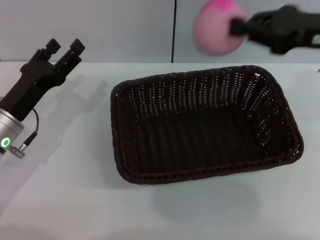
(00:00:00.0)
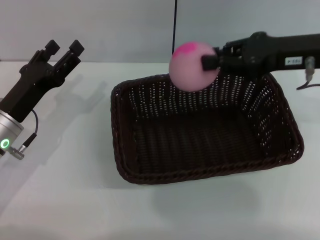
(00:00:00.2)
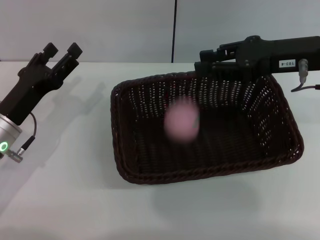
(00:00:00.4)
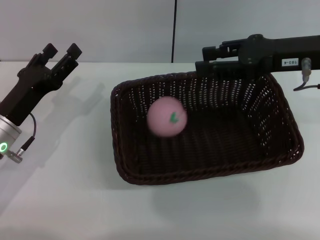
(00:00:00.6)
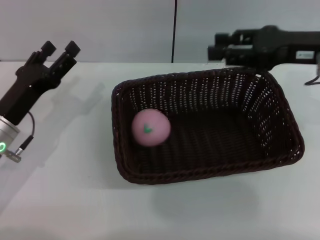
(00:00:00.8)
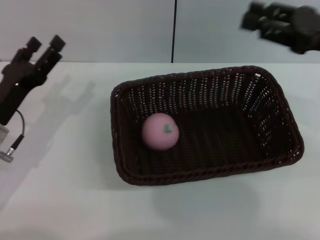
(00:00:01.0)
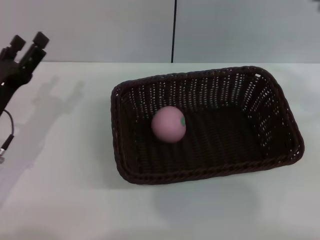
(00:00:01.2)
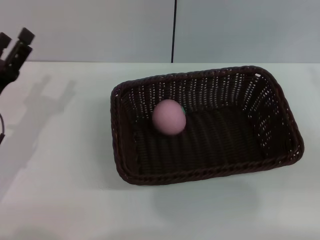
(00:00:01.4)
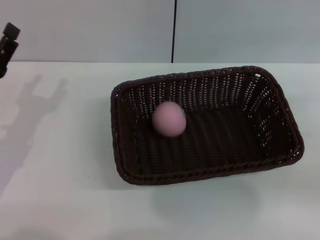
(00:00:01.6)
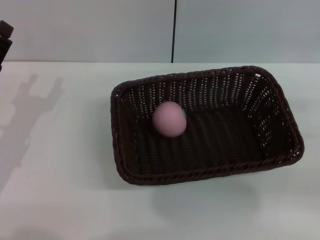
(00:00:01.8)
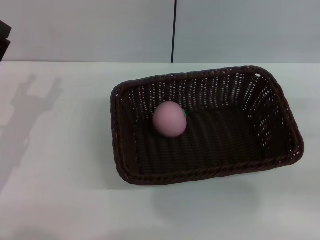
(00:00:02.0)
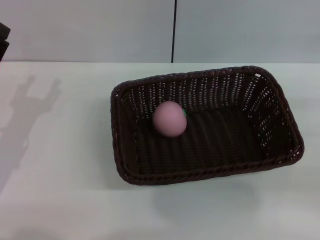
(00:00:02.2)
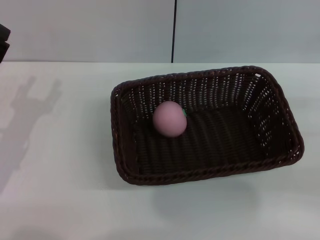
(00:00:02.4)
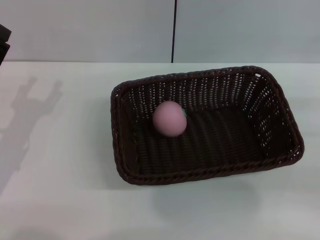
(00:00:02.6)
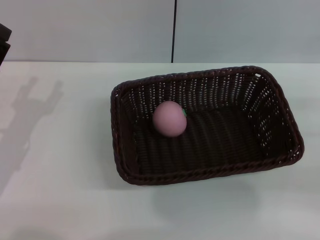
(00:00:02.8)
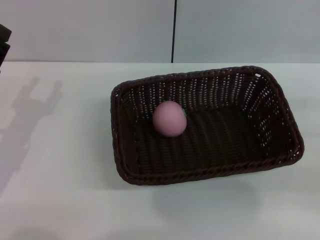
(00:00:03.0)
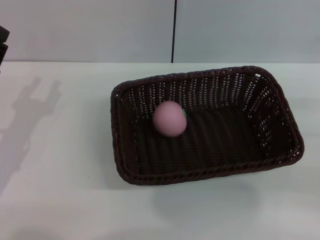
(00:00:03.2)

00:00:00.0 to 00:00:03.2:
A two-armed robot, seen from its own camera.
Step, 00:00:00.0 to 00:00:01.2: Place the peach into the basket with the left gripper.
00:00:00.0 to 00:00:01.6: The right gripper heads to the right, downward and backward, covering approximately 20 cm, and opens.
